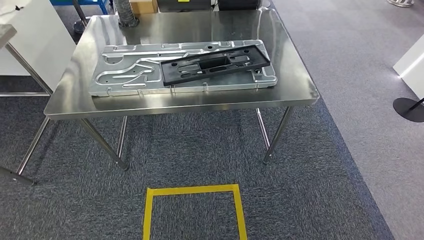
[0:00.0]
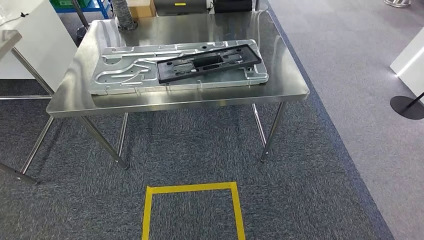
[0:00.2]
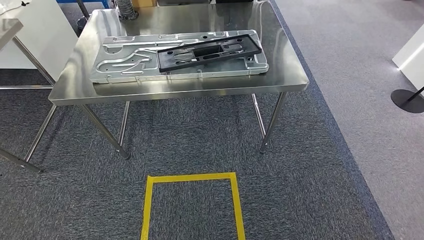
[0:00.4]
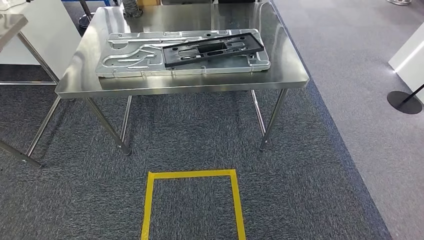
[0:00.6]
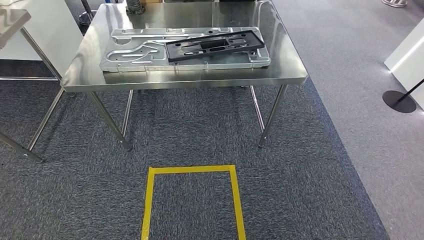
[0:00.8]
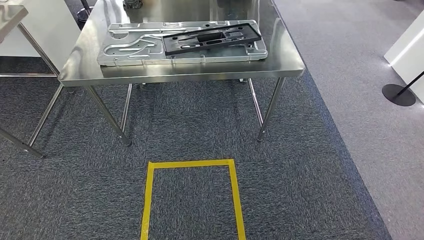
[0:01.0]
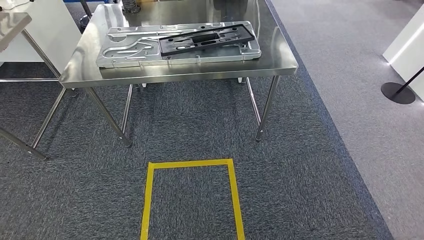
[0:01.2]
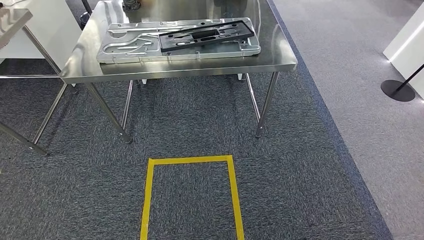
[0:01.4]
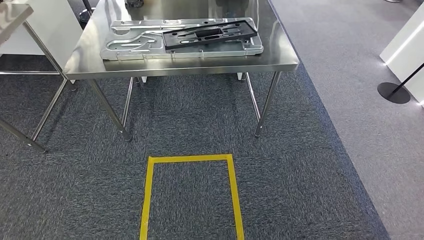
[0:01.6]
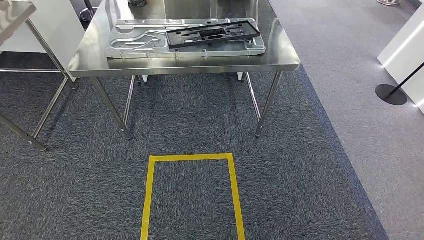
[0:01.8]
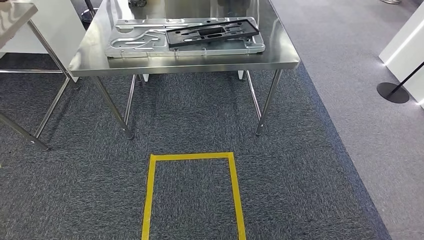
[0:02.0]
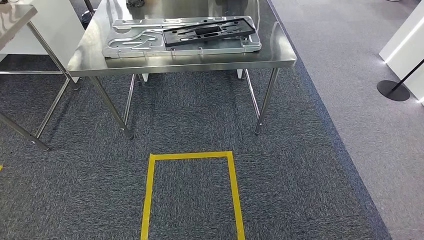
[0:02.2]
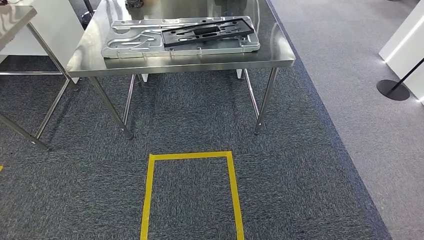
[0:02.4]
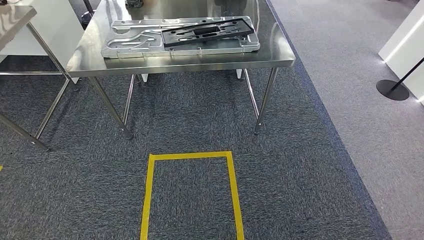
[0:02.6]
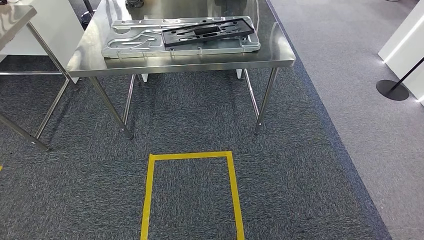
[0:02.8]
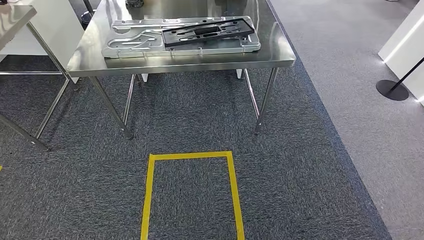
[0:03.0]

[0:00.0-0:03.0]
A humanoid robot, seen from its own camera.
Step, 0:00.0 to 0:02.8: Move to the initial position of the shelf.
0:01.6 to 0:03.0: There are only small adjustments of the hands.

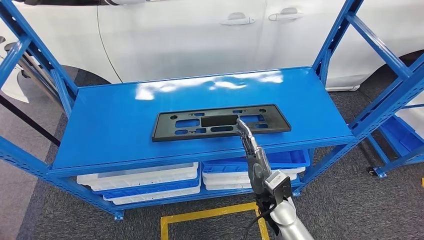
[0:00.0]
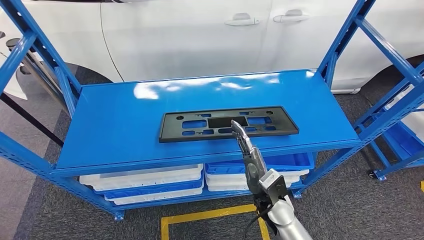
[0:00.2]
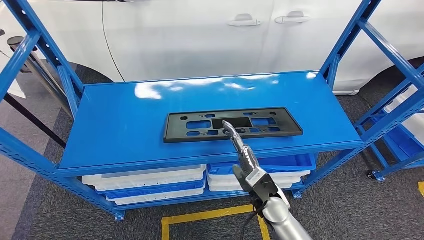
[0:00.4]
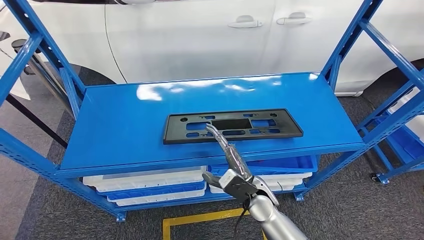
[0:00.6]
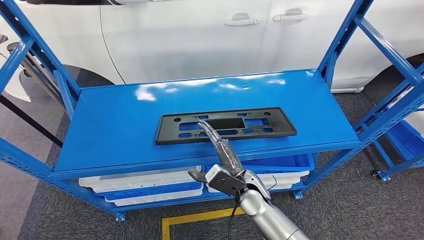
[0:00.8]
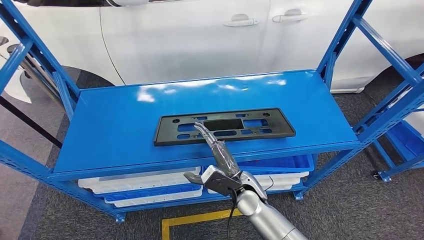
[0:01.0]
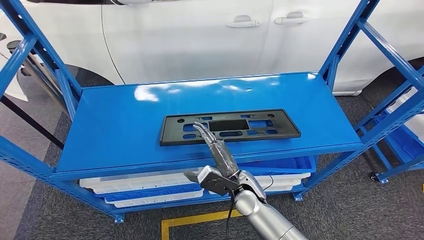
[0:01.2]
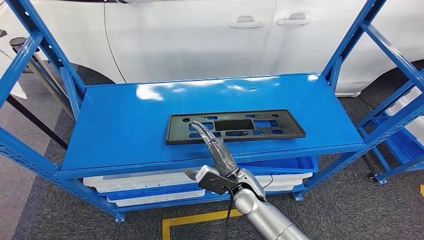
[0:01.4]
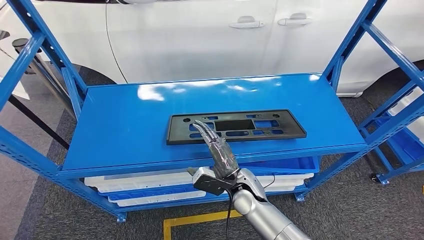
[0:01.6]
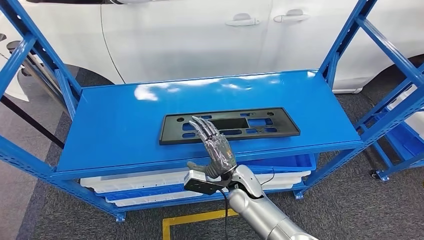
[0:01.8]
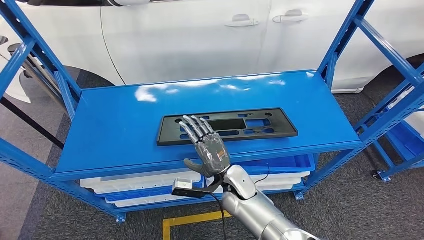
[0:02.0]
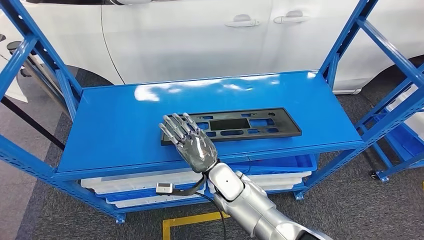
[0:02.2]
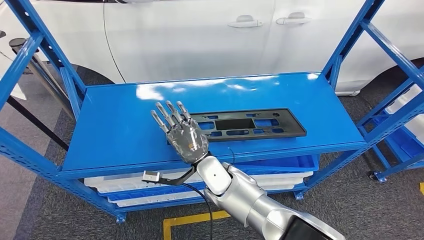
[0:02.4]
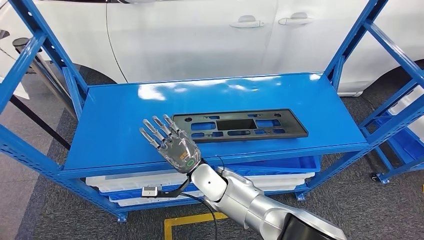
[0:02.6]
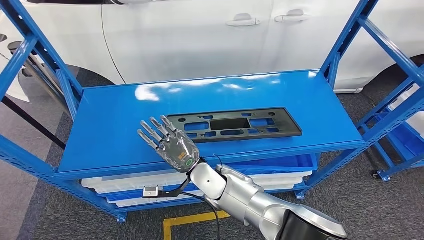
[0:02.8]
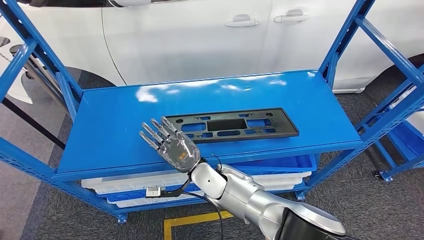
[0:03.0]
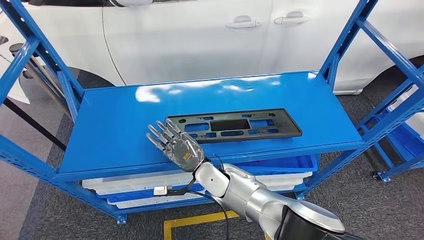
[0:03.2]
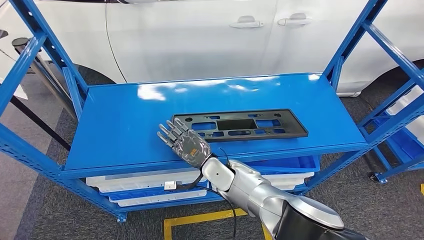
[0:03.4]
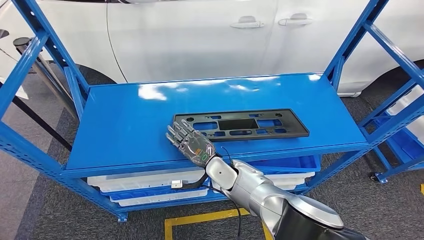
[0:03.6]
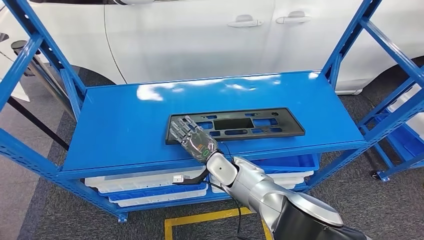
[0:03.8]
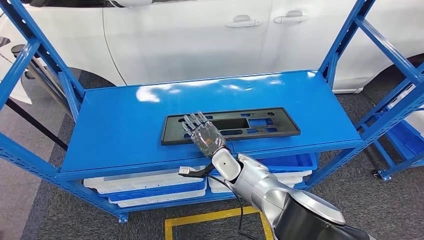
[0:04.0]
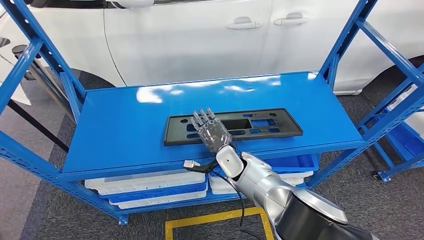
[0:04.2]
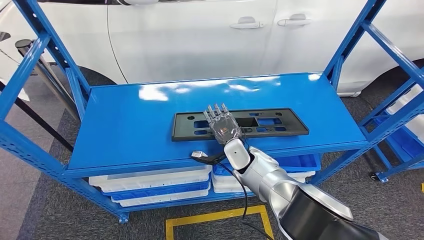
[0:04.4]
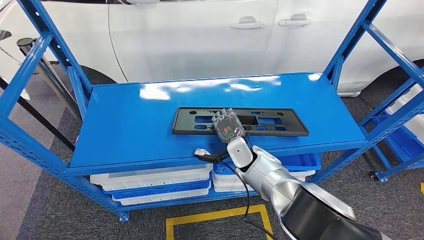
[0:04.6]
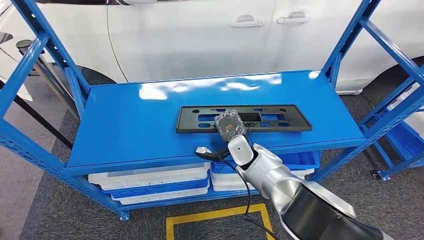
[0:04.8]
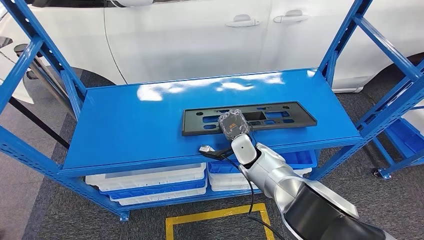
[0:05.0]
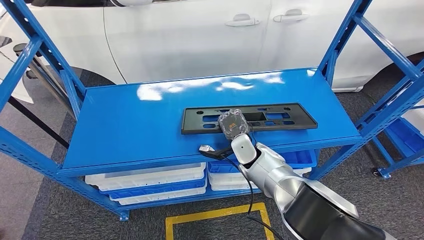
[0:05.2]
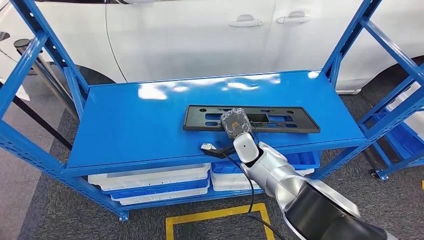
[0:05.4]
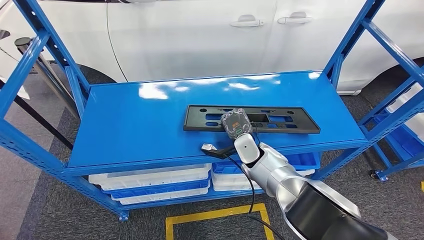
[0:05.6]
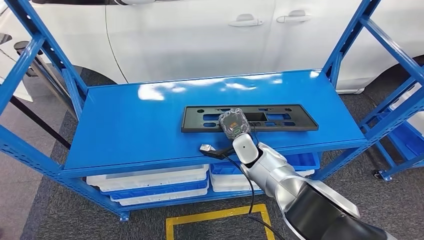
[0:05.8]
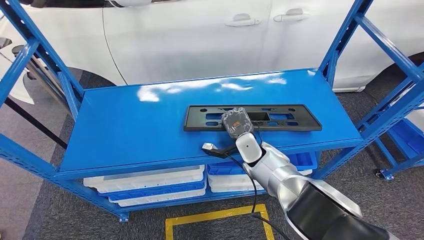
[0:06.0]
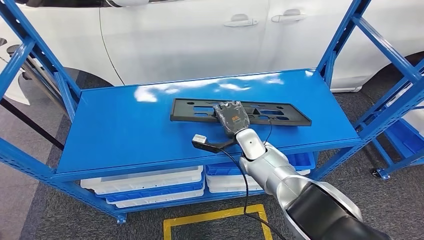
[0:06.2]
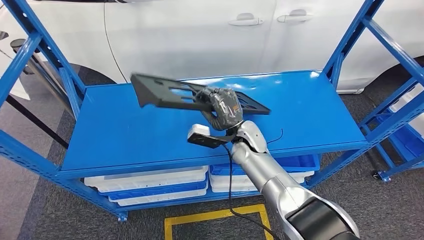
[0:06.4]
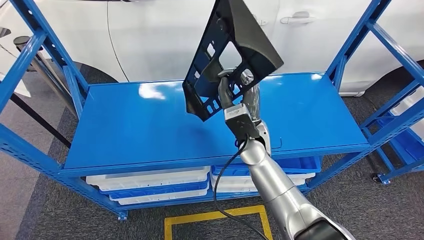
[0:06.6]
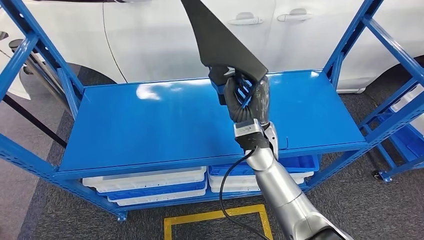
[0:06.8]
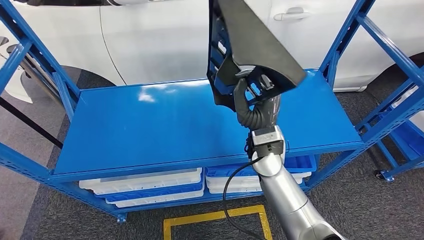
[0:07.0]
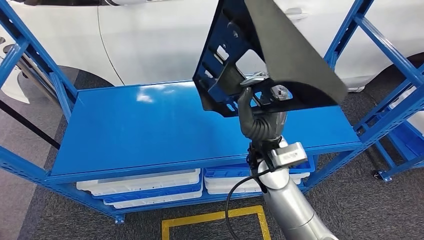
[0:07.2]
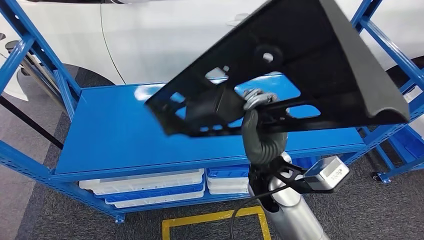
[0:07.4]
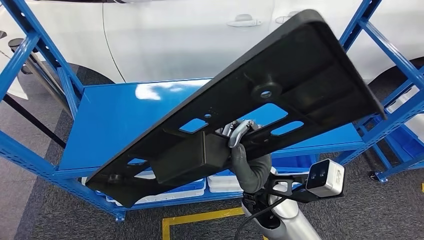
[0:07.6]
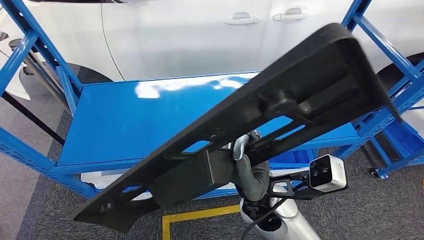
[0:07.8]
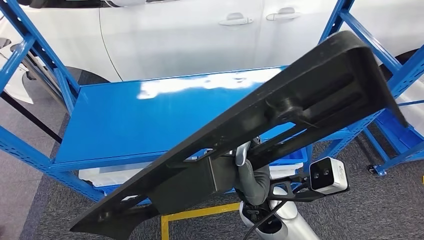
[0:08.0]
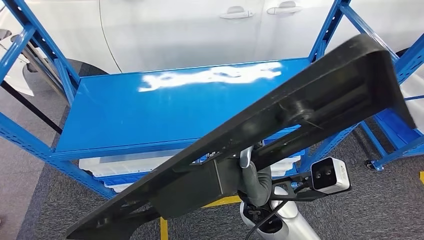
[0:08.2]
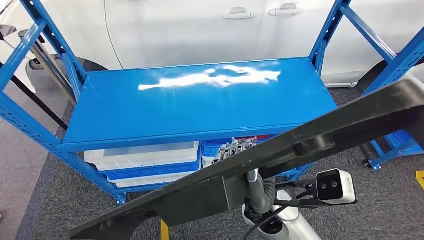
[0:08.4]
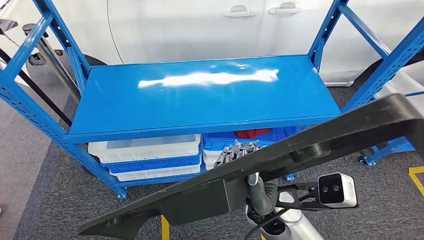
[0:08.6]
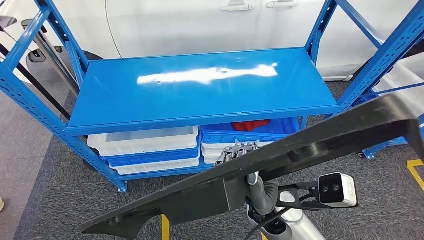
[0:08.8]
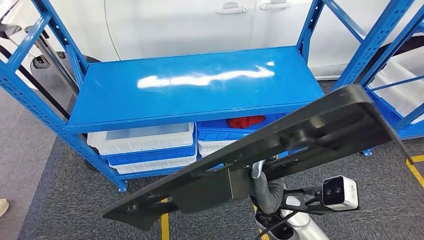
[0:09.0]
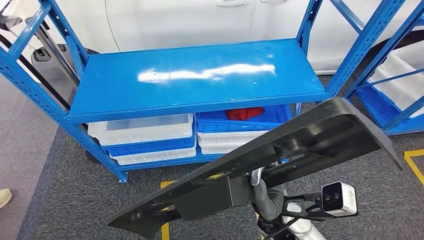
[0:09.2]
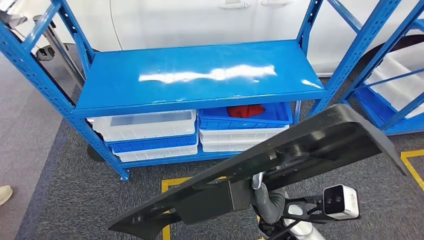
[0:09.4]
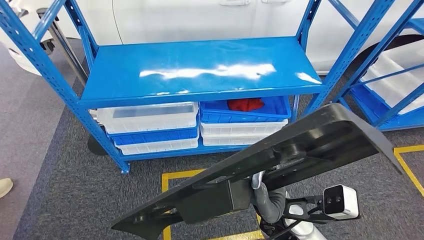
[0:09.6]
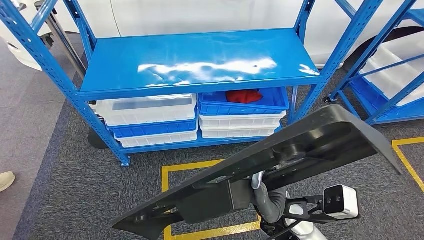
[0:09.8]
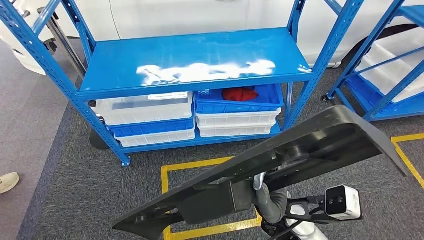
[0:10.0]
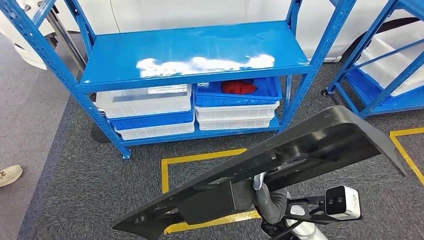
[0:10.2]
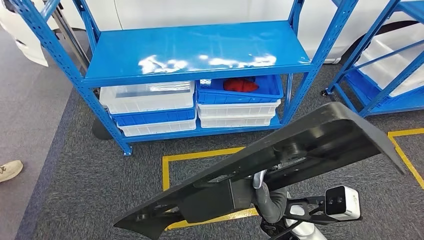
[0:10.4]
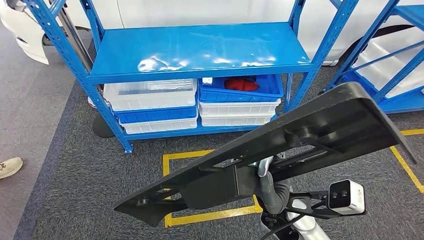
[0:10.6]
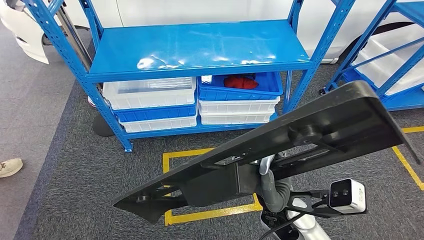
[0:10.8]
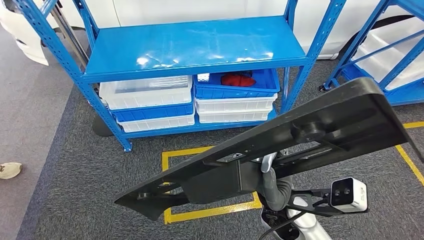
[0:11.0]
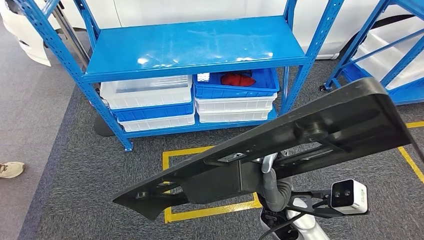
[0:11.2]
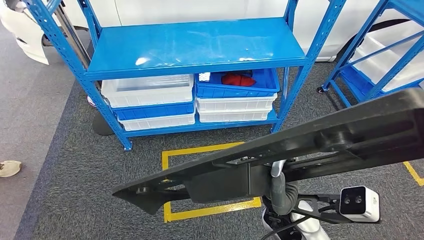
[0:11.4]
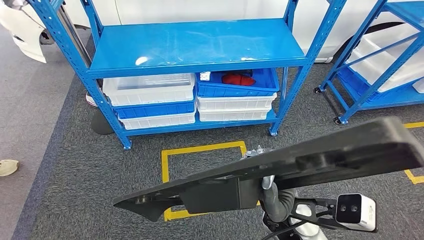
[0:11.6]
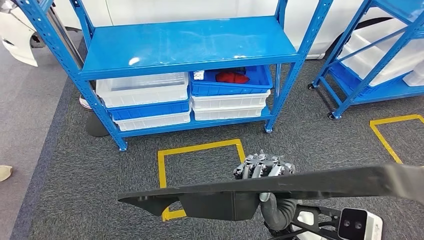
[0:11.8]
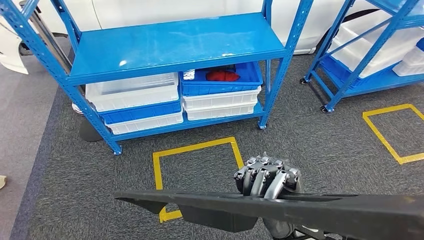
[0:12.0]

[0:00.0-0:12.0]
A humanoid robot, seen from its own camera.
Step, 0:00.0 to 0:07.8: Pick up the large material from the shelf.

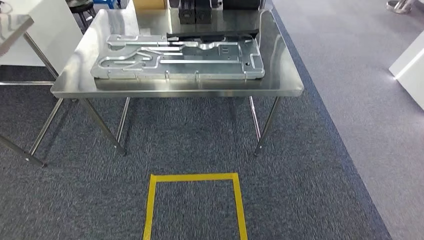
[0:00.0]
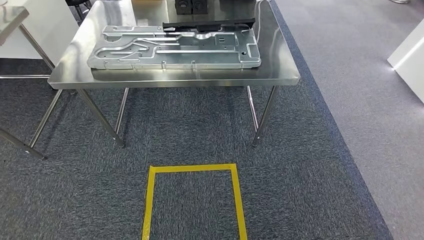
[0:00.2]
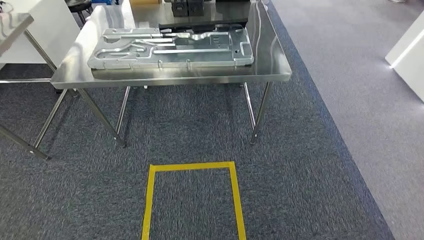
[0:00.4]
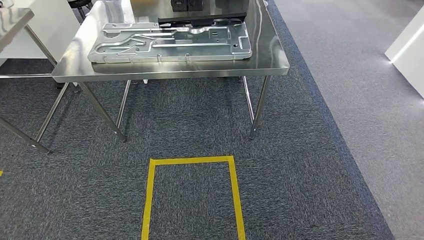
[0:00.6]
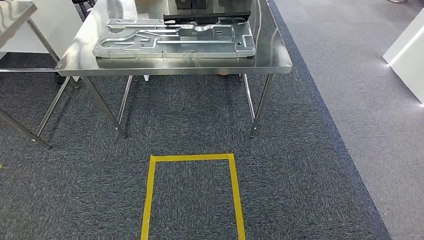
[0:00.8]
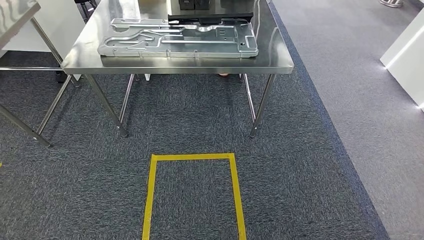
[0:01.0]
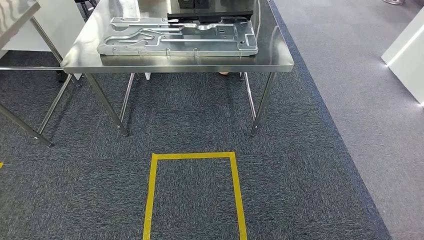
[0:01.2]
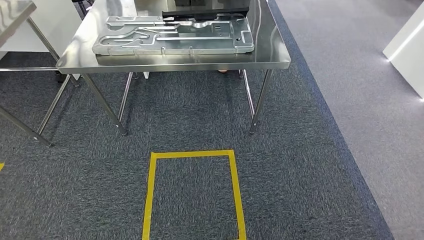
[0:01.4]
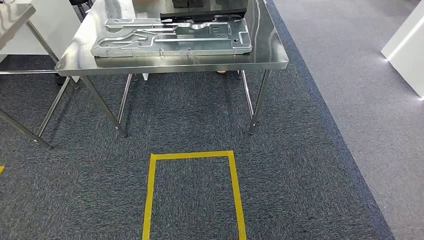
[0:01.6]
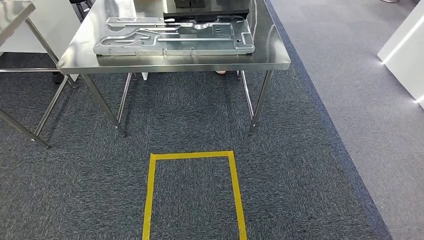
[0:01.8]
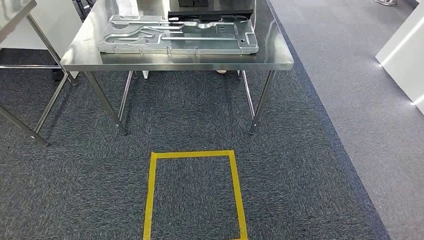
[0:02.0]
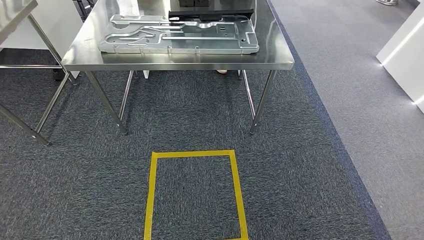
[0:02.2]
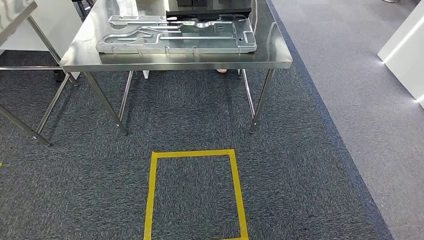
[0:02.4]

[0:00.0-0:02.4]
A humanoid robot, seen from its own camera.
Step, 0:00.0 to 0:02.4: Move to the initial position of the shelf.
0:01.2 to 0:02.4: Both hands stay about where they are.
